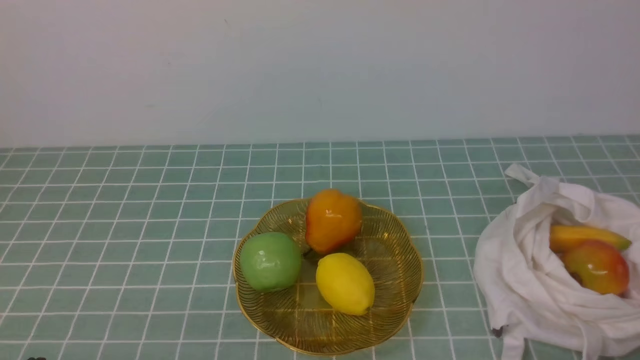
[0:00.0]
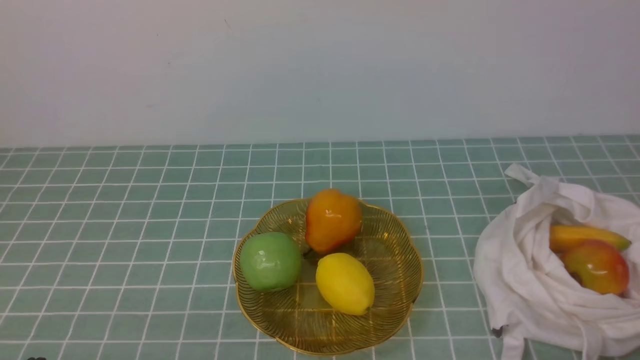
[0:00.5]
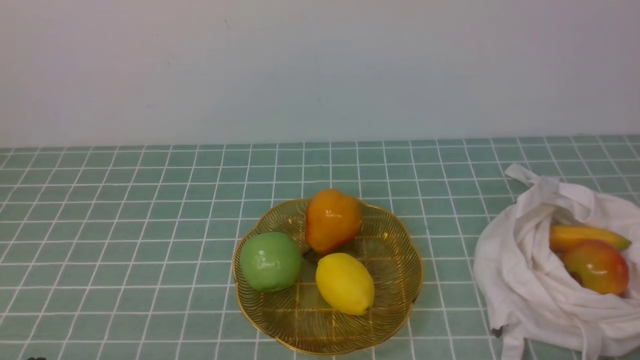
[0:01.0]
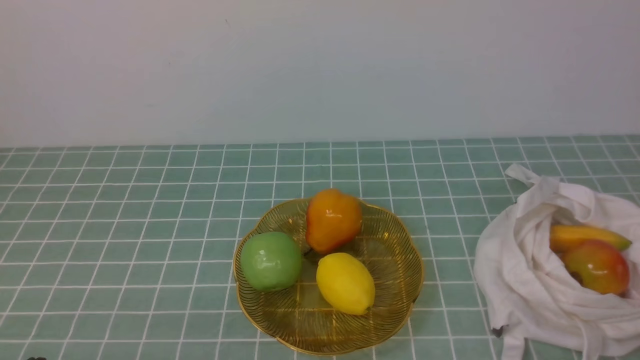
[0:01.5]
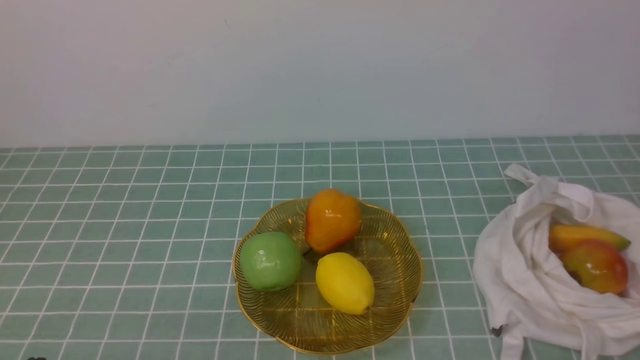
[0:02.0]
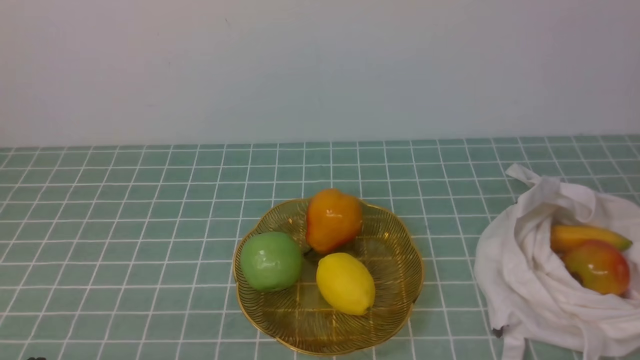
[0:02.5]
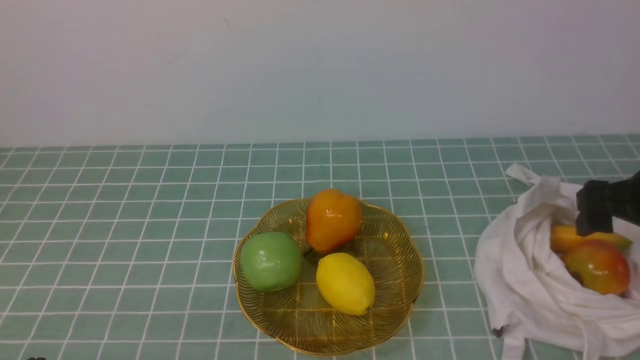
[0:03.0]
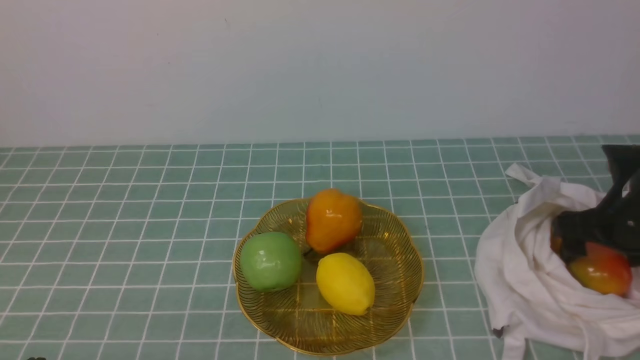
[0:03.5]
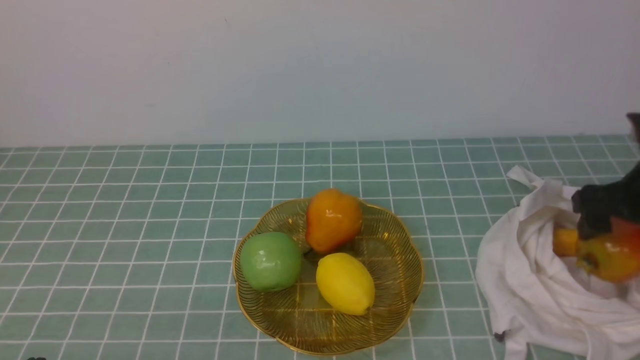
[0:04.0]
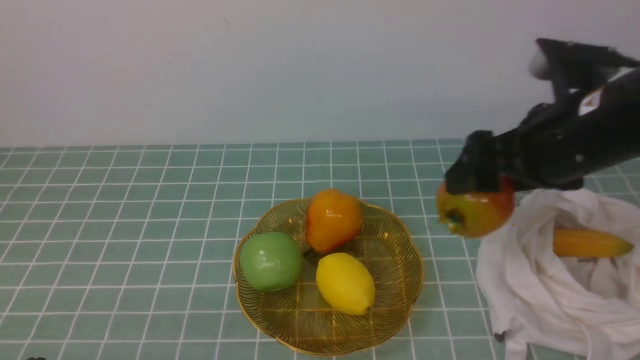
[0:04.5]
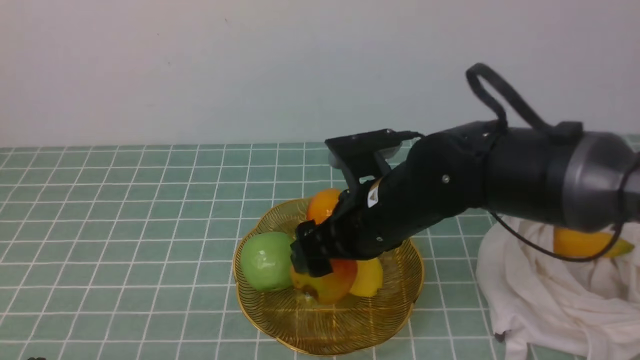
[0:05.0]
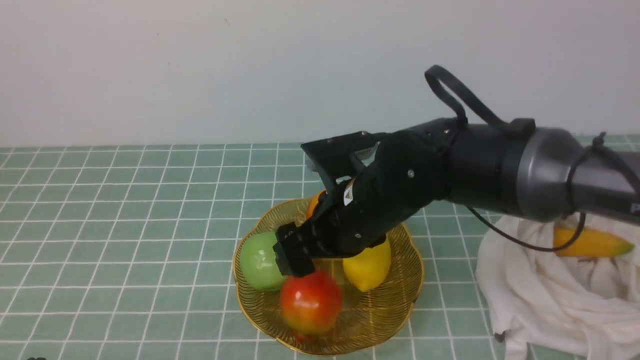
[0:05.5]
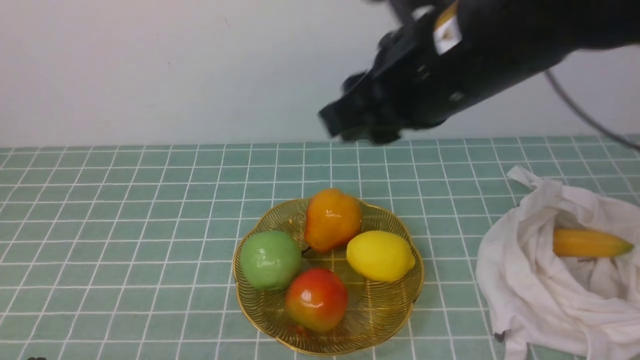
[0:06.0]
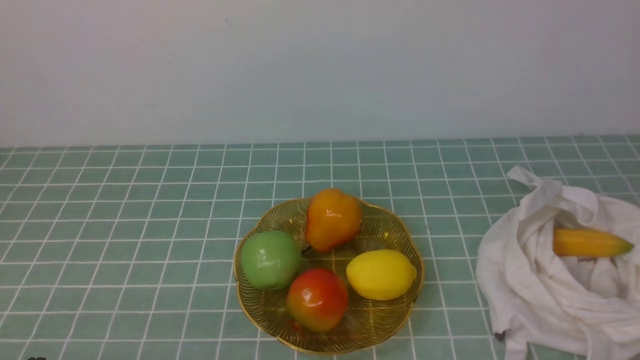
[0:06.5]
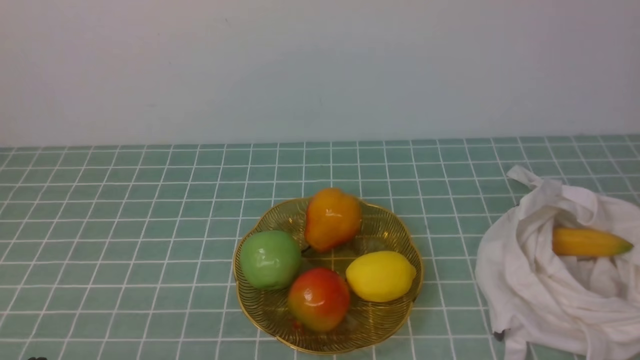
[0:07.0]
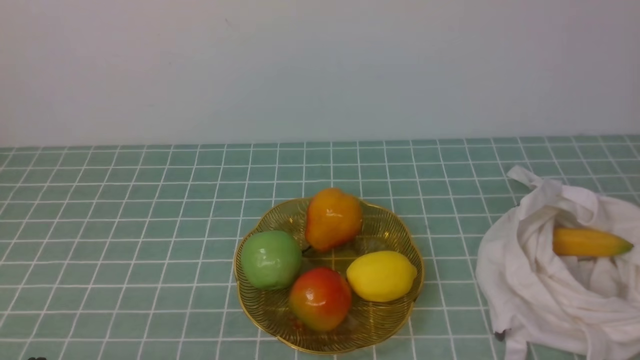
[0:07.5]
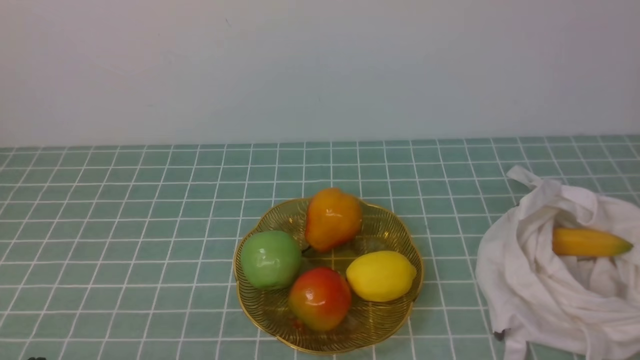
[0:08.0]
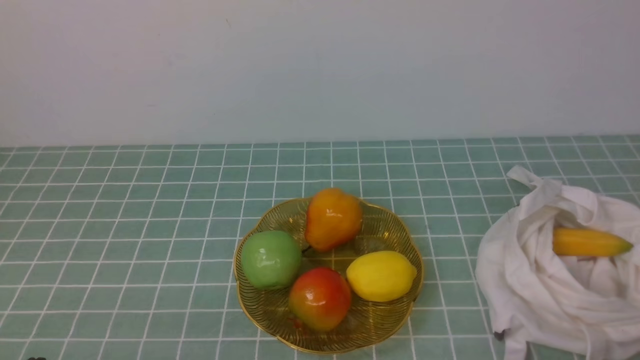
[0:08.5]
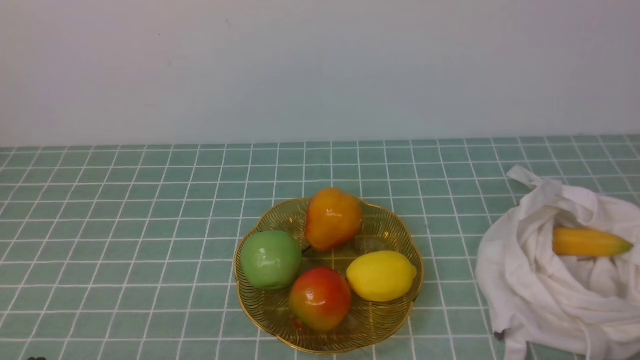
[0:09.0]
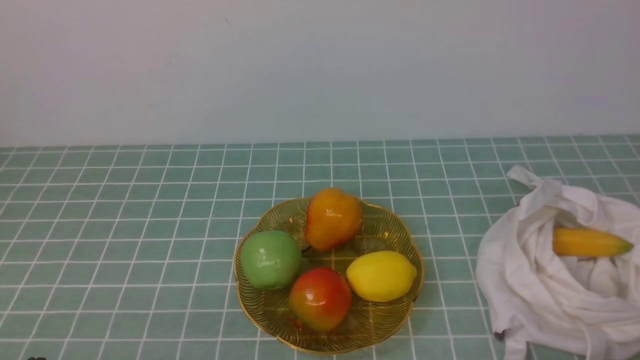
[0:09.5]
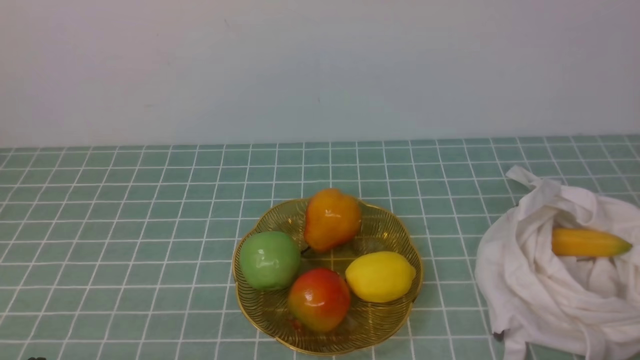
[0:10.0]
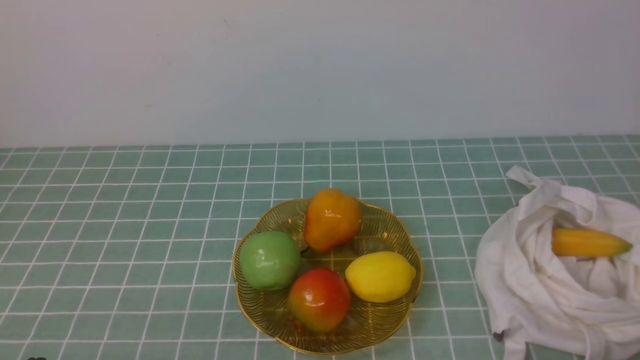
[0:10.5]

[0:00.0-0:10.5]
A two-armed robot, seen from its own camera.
Step, 0:00.0 to 0:03.5: use the right arm to grab a pomegranate from the bag.
Step, 0:04.0 to 0:05.5: use the right arm to put the pomegranate into the empty plate on the left.
0:02.0 to 0:04.0: The right gripper heads forward, covering approximately 25 cm, and opens up.
0:04.0 to 0:06.5: The right gripper shifts approximately 35 cm backward and upward, reaches approximately 30 cm to the left, then returns, and closes its fingers.
